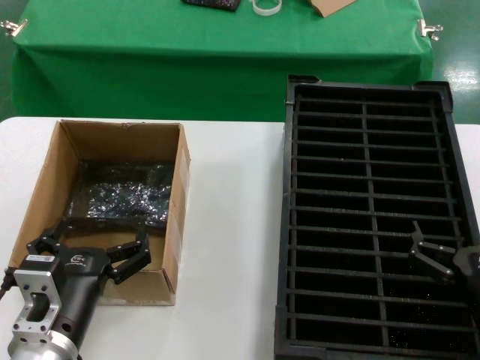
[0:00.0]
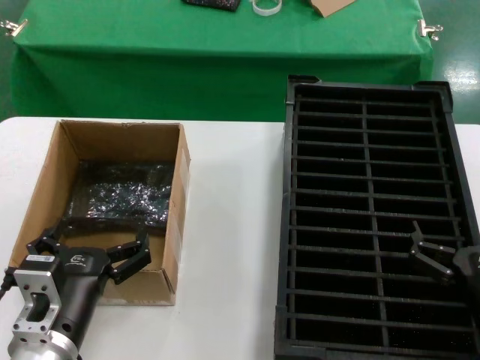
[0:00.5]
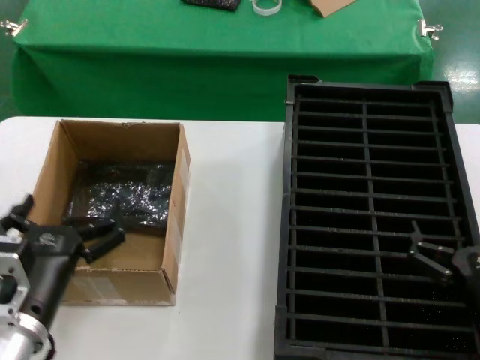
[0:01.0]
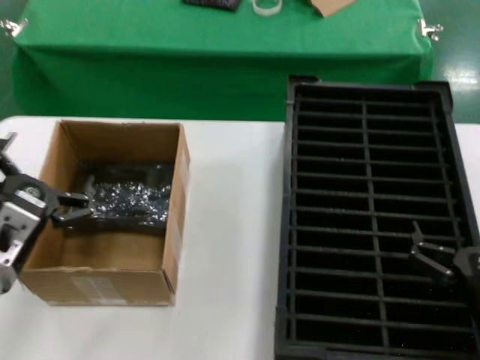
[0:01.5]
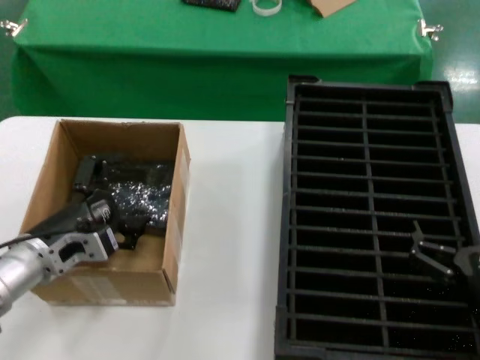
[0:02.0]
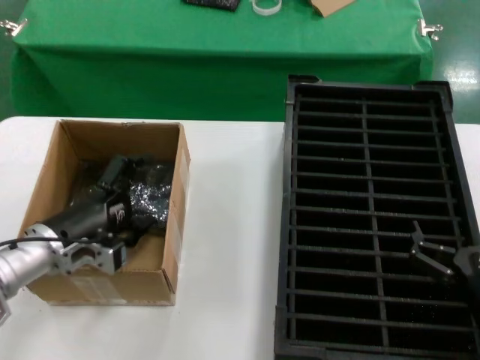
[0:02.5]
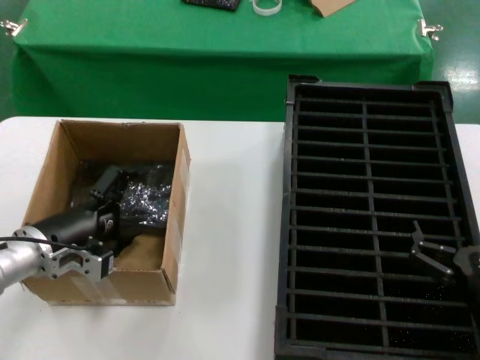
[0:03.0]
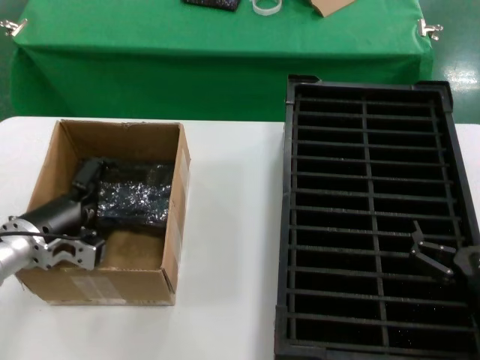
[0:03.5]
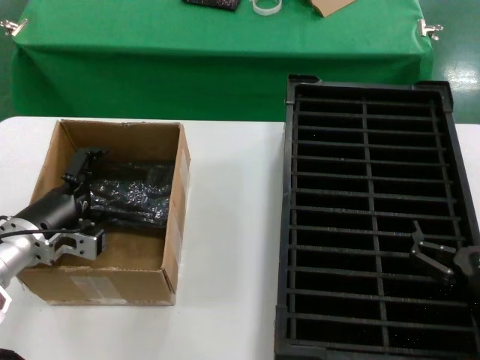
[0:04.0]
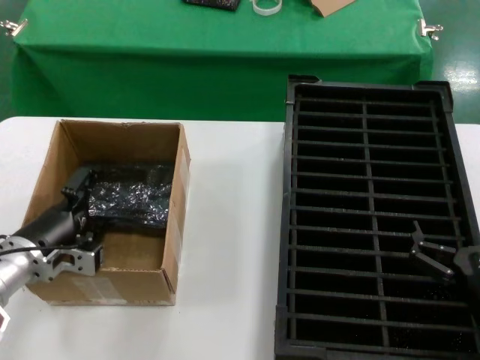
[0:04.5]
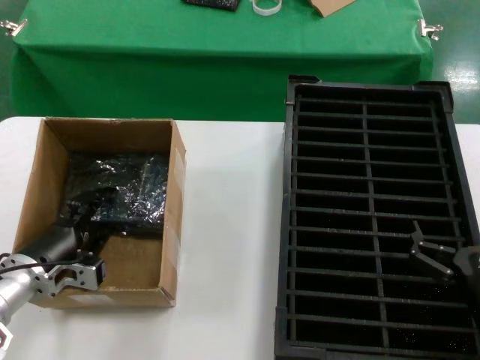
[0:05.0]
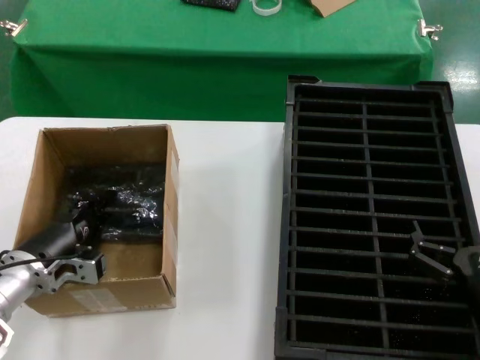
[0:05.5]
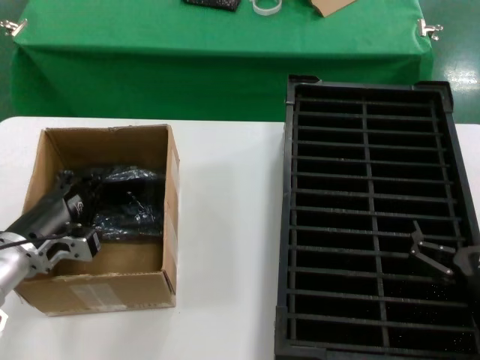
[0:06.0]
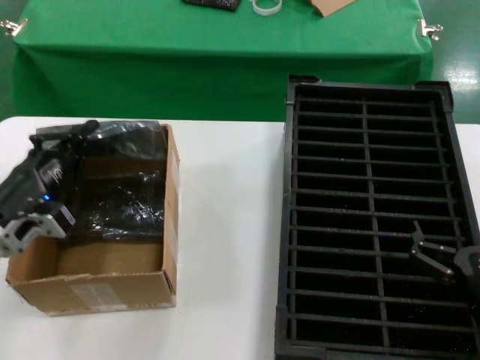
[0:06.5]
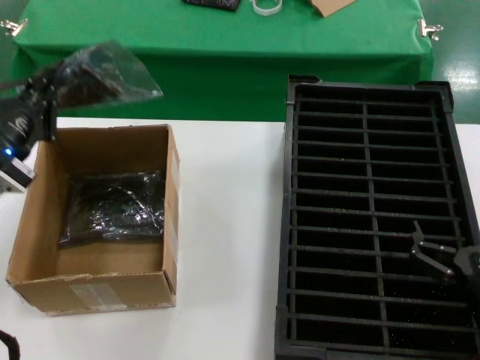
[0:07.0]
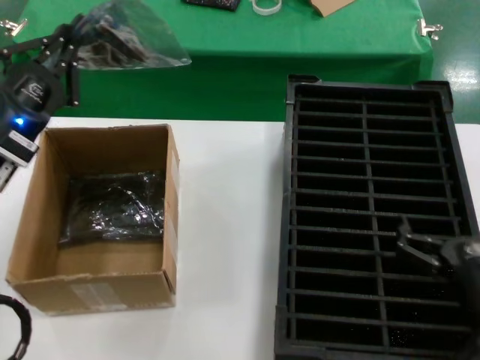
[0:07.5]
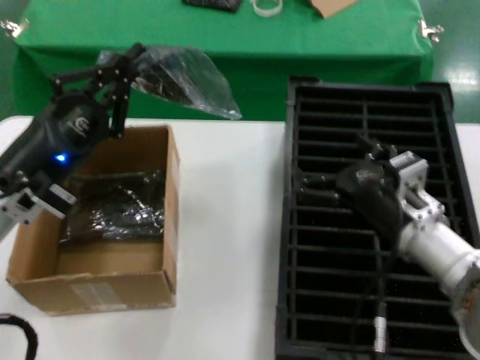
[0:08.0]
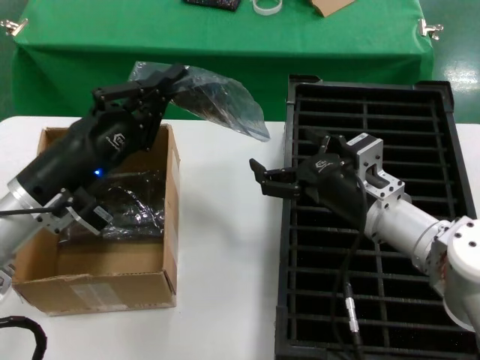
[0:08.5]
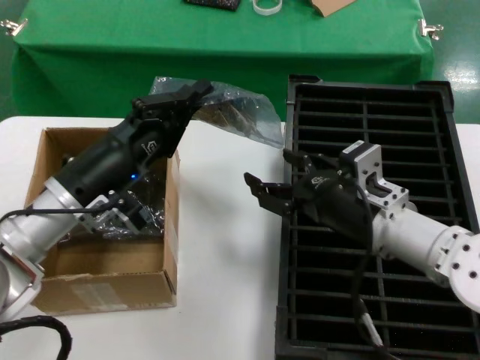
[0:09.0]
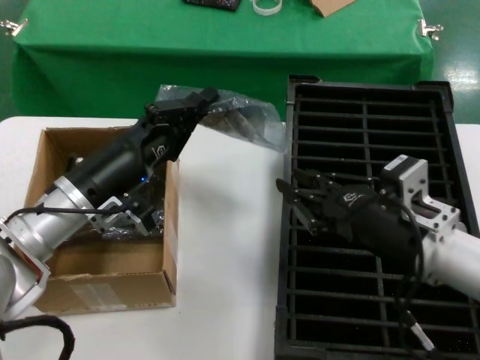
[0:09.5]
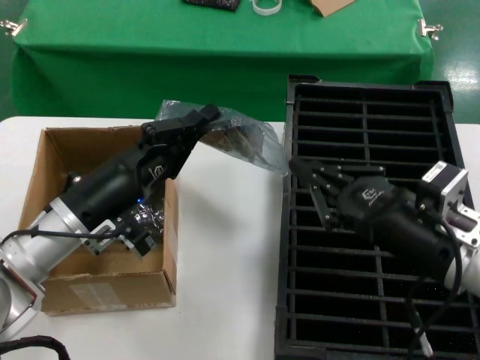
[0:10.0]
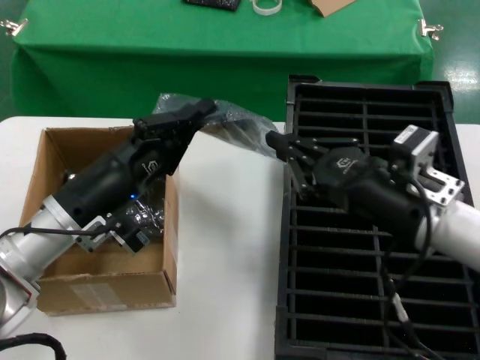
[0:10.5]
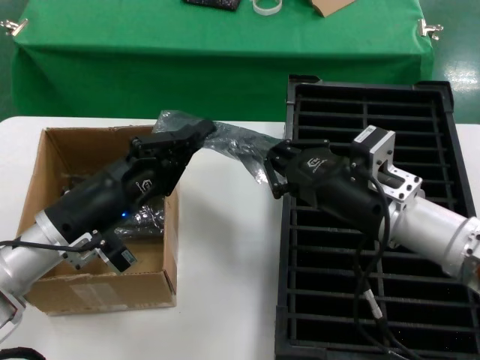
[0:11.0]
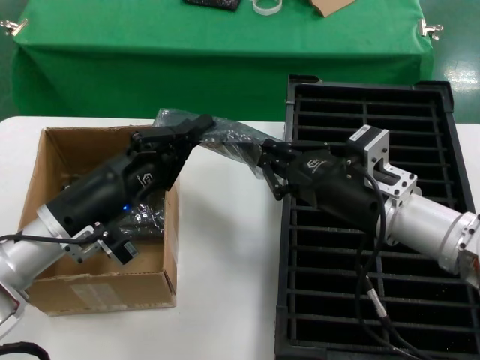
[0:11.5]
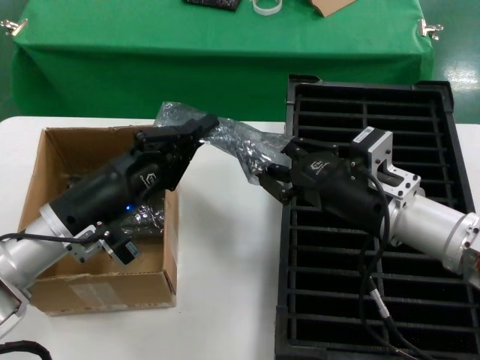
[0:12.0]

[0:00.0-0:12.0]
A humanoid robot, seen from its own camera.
Task of the whole recording: take out graphics card from box remove packaging put into black container.
Step, 0:00.0 to 0:05.5: Grasp the bag.
Step, 0:06.0 to 0:07.5: Lift the bag.
0:00.0 to 0:02.0: The left hand travels forward and to the left by roughly 15 cm.
0:02.0 to 0:04.0: The left hand shifts by about 5 cm.
0:04.0 to 0:06.0: There are only small adjustments of the hands.
0:06.0 to 0:08.0: The right hand heads forward and to the left, covering roughly 15 cm. The left hand heads upward, covering roughly 10 cm.
0:08.0 to 0:10.0: The left hand heads to the right, covering approximately 5 cm. Meanwhile the right hand goes some 10 cm backward and upward.
0:10.0 to 0:12.0: The right hand moves forward, some 10 cm.

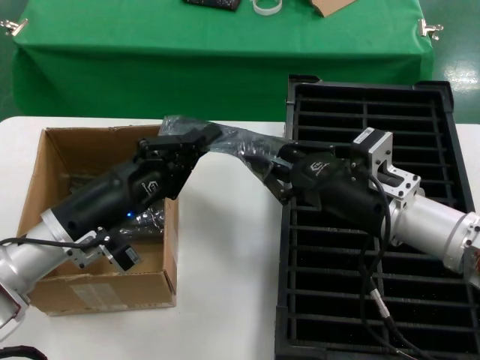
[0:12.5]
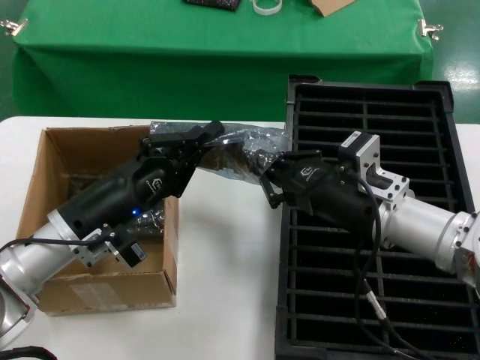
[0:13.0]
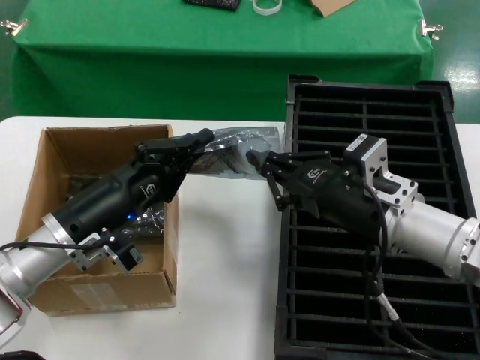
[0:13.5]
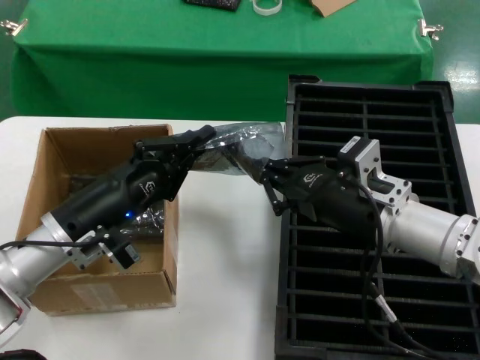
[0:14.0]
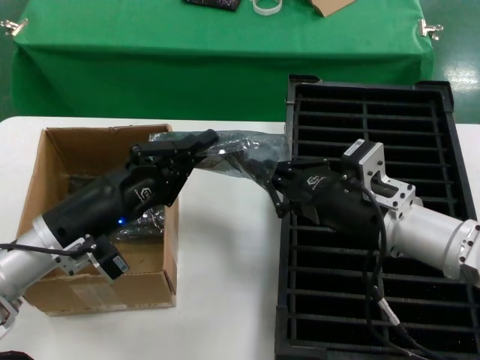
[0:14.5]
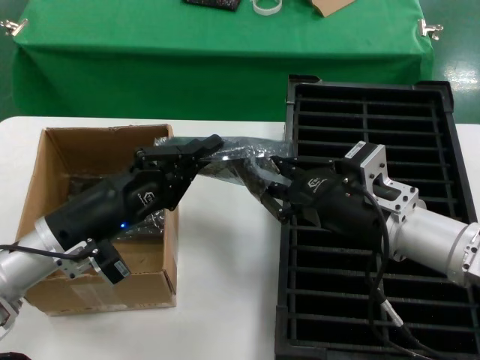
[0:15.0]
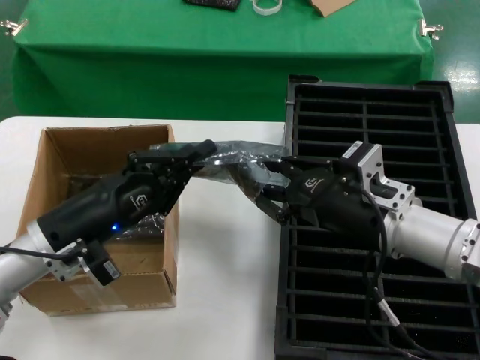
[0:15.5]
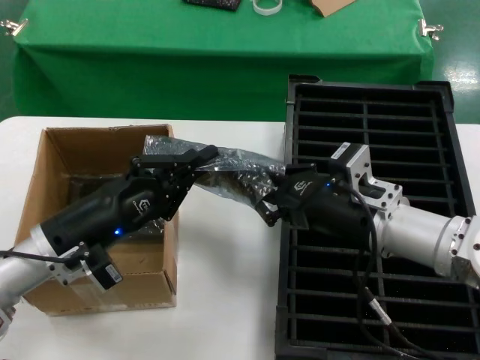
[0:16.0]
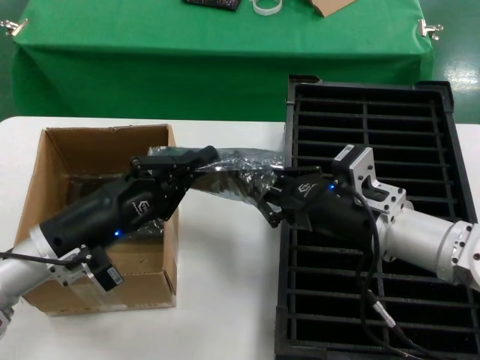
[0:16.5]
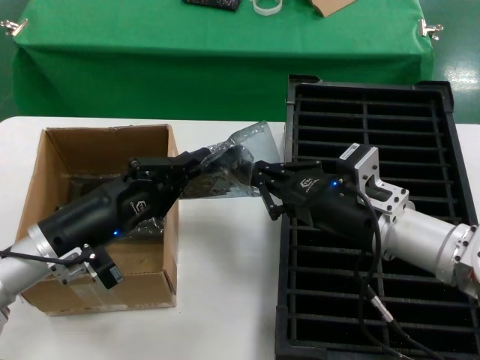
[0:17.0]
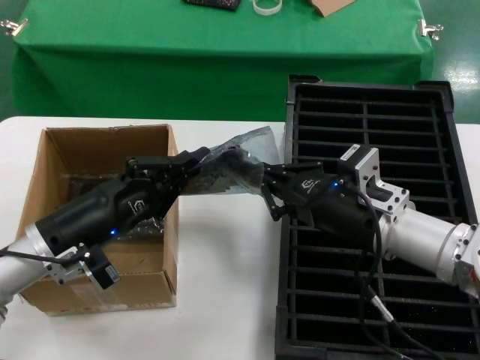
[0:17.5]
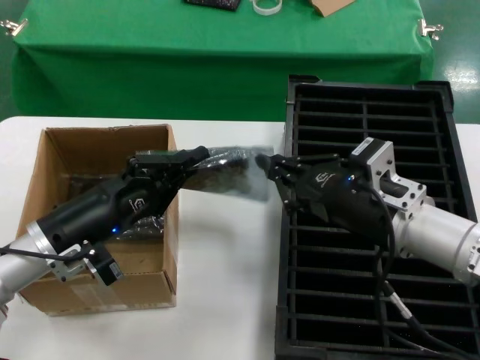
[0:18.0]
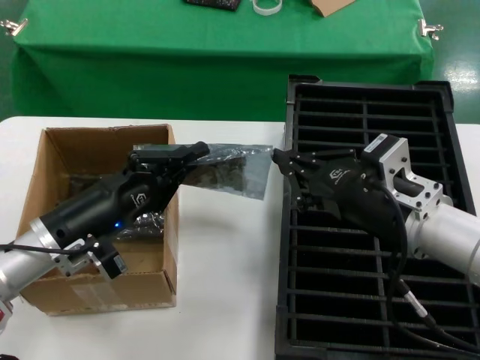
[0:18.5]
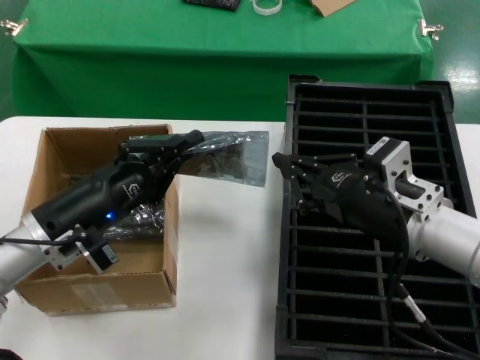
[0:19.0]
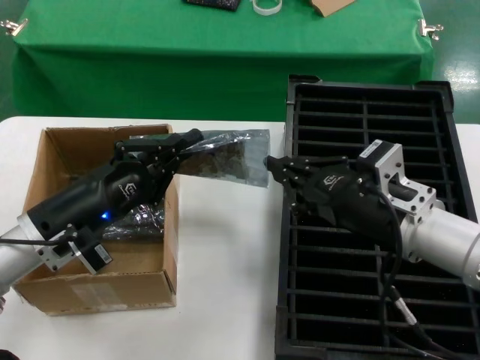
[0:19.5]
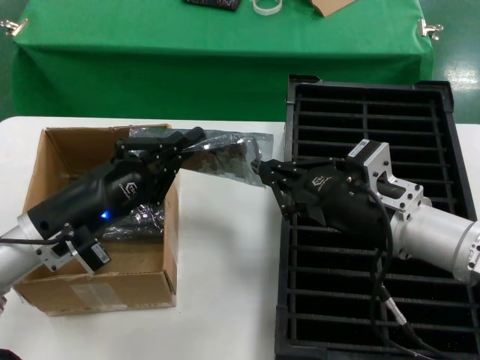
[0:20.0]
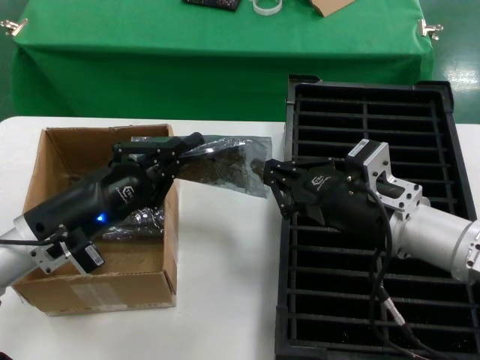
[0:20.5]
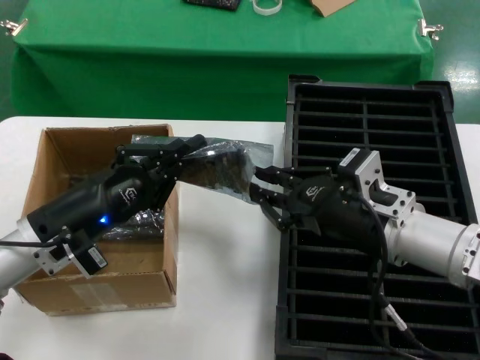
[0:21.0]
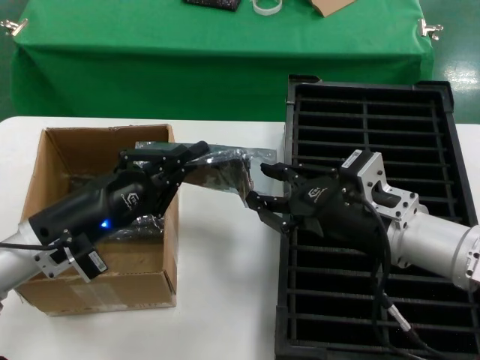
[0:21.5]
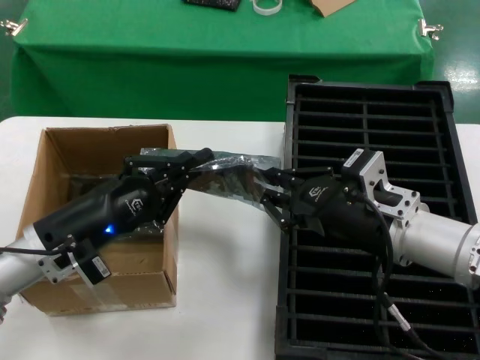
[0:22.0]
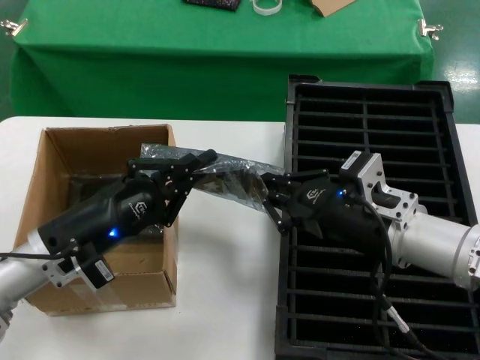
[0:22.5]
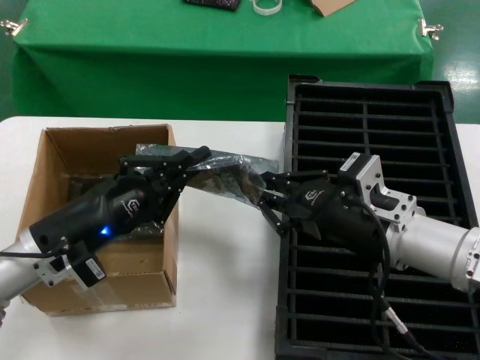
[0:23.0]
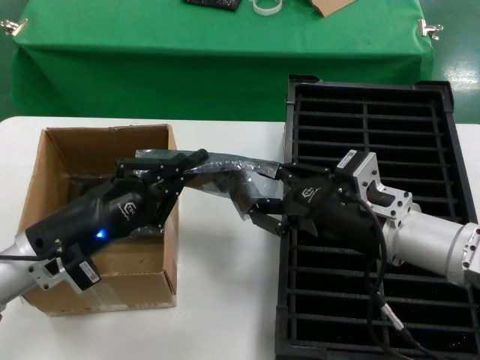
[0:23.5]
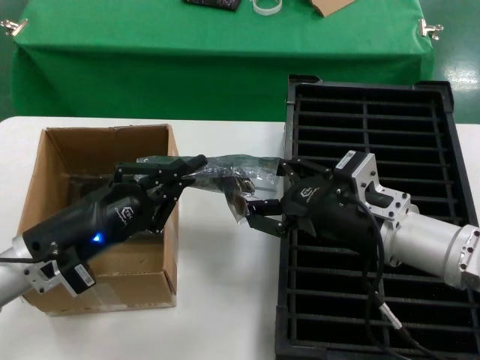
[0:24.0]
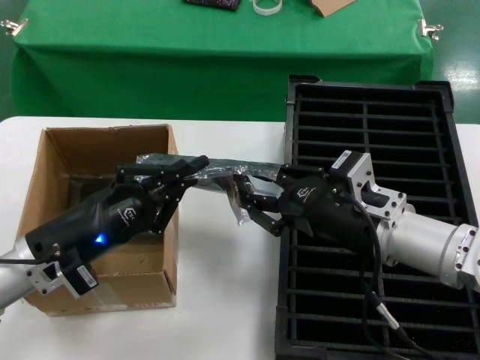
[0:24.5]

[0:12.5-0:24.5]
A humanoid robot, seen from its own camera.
Task of the whole recording: take out graphics card from box remove packaging put into black container.
0:12.5 to 0:22.5: The hands move only a little.
0:22.5 to 0:24.5: The hands make only small movements.

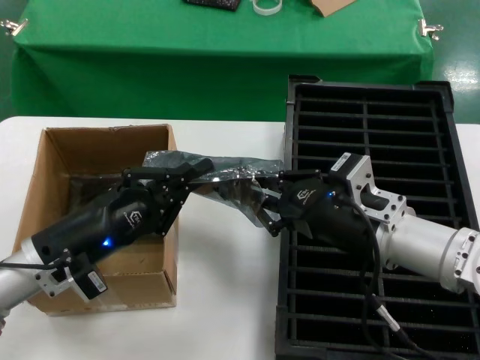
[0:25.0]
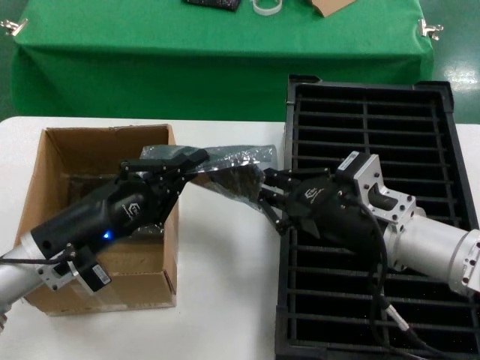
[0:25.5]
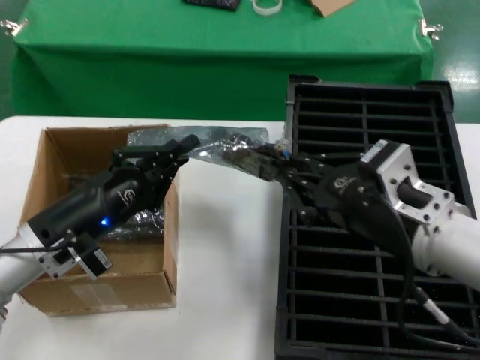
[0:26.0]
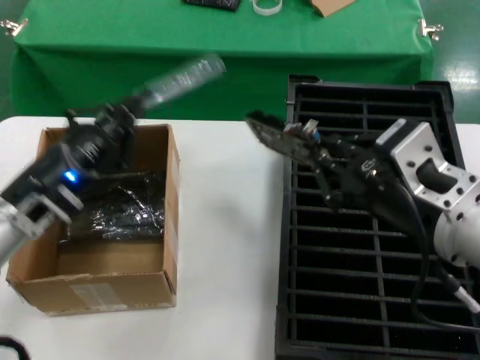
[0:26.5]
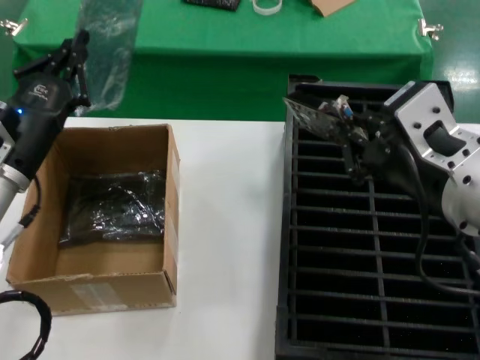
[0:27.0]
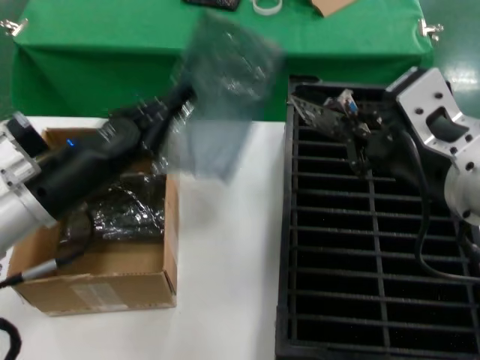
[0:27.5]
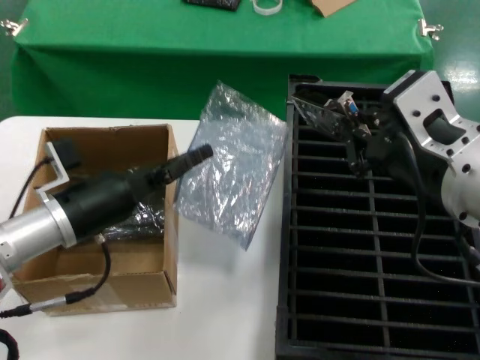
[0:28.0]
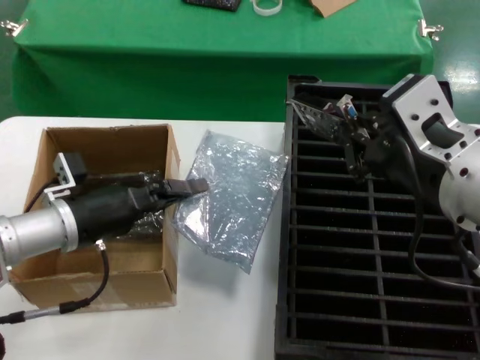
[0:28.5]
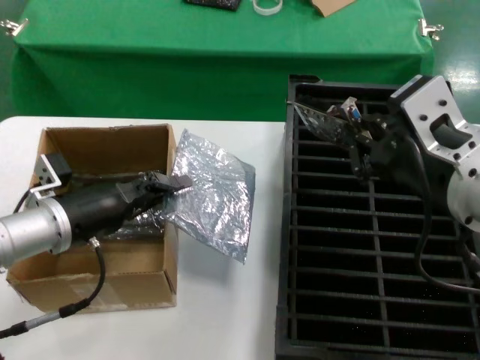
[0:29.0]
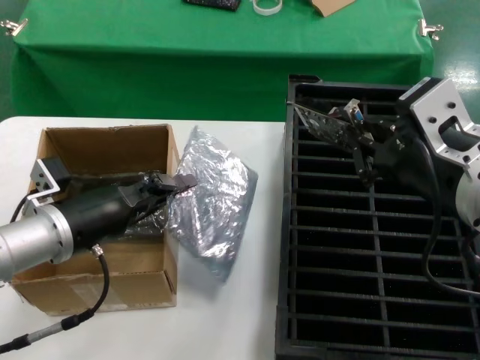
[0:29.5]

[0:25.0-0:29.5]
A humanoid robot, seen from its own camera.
Task of the whole recording: take out graphics card from box remove packaging put into black container.
0:25.0 to 0:27.0: The left hand moves upward, roughly 5 cm. The right hand moves upward and backward, approximately 15 cm.
0:27.0 to 0:29.5: The left hand travels to the right and backward by roughly 10 cm.
